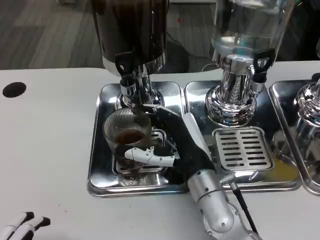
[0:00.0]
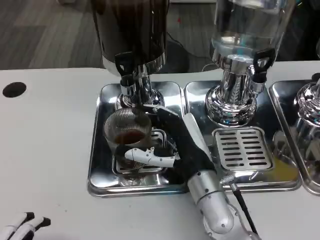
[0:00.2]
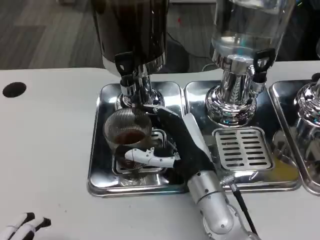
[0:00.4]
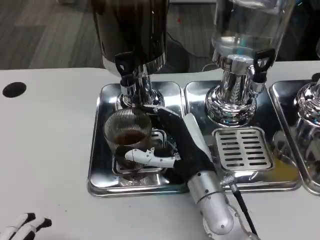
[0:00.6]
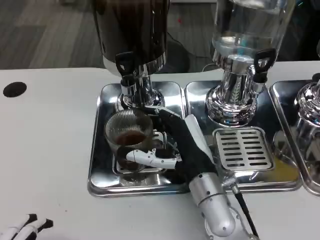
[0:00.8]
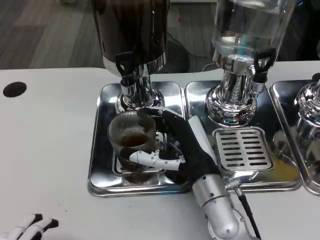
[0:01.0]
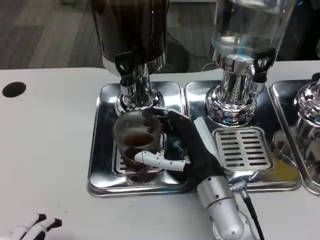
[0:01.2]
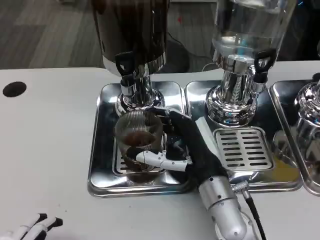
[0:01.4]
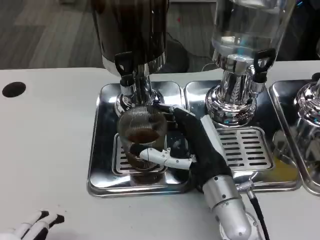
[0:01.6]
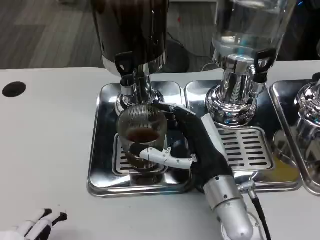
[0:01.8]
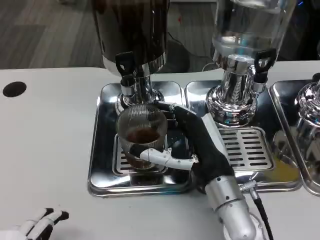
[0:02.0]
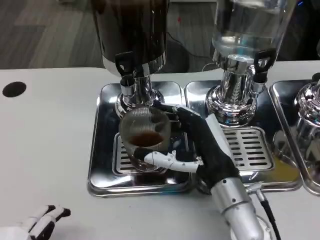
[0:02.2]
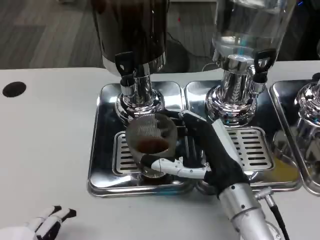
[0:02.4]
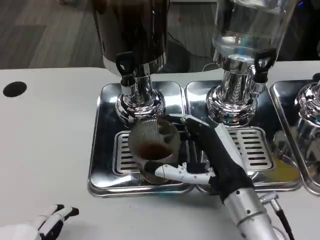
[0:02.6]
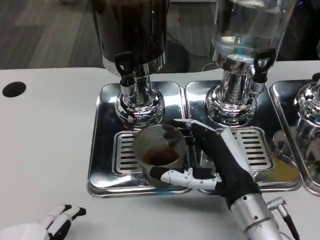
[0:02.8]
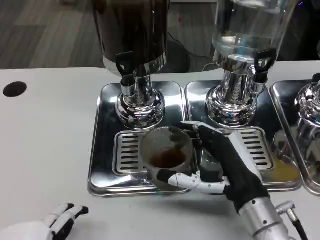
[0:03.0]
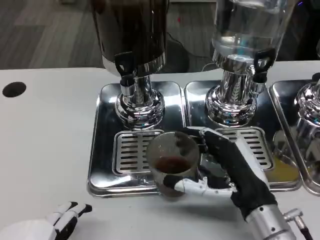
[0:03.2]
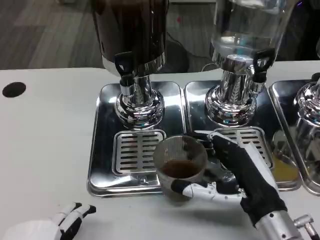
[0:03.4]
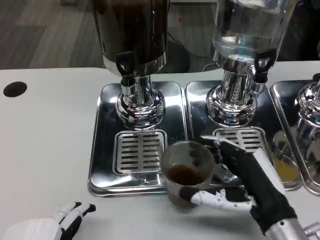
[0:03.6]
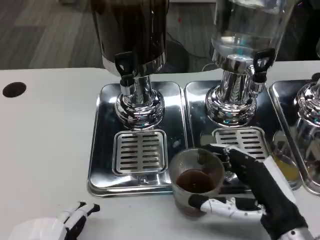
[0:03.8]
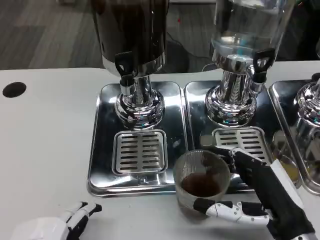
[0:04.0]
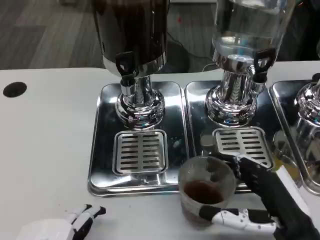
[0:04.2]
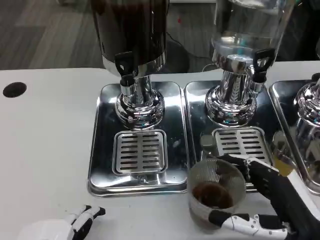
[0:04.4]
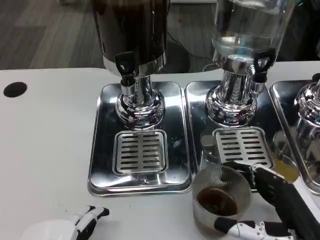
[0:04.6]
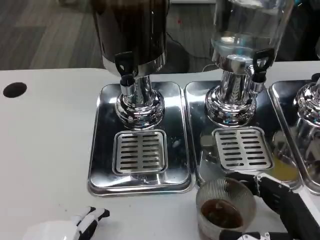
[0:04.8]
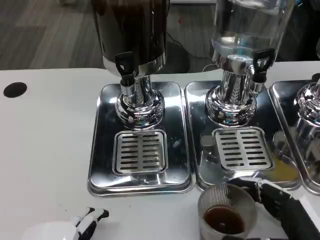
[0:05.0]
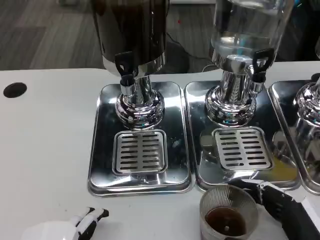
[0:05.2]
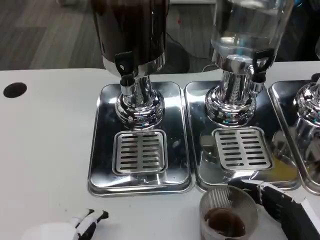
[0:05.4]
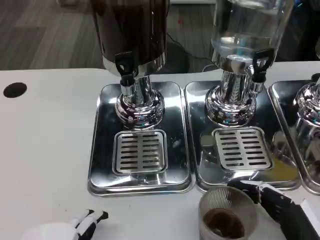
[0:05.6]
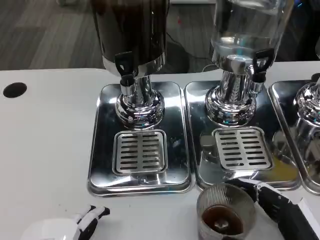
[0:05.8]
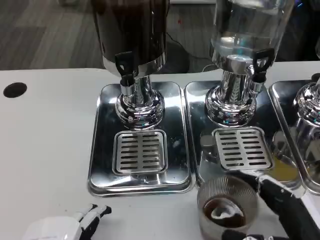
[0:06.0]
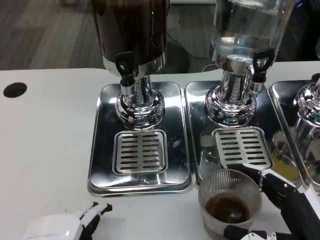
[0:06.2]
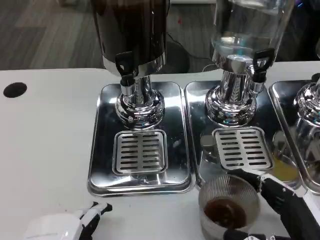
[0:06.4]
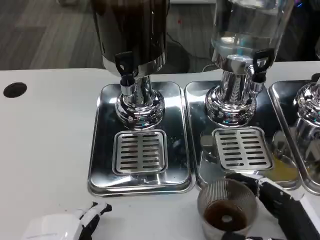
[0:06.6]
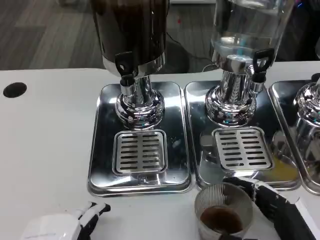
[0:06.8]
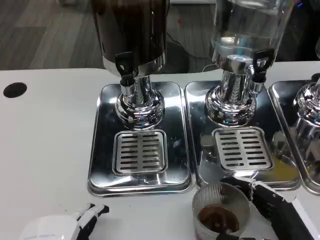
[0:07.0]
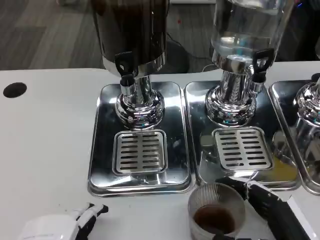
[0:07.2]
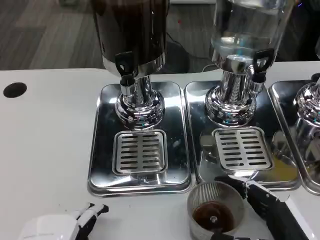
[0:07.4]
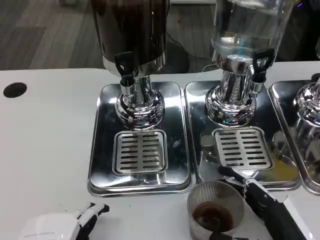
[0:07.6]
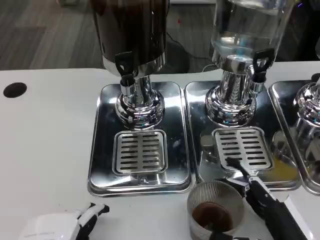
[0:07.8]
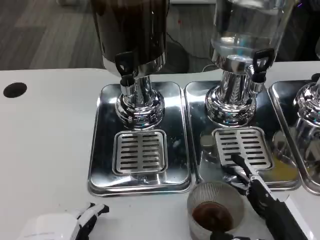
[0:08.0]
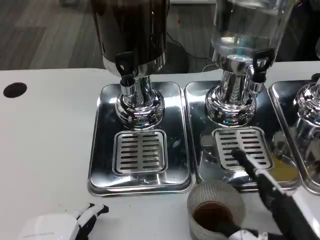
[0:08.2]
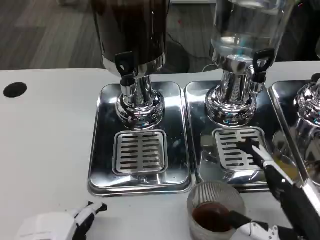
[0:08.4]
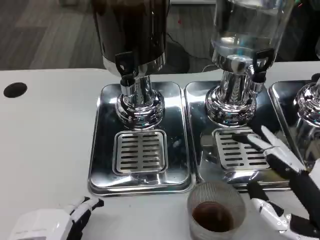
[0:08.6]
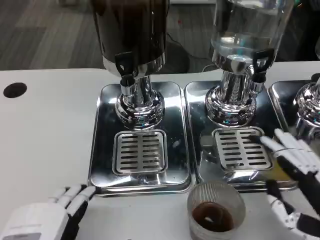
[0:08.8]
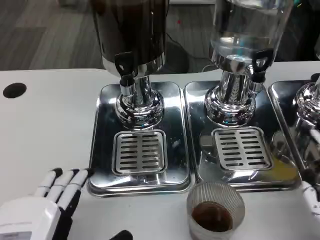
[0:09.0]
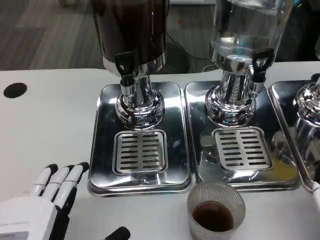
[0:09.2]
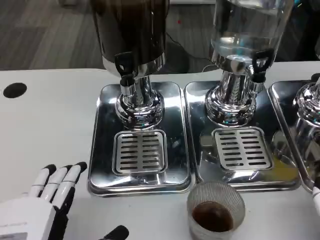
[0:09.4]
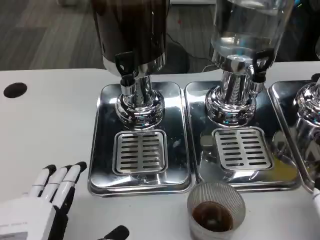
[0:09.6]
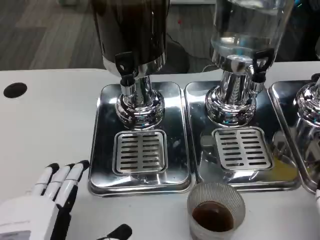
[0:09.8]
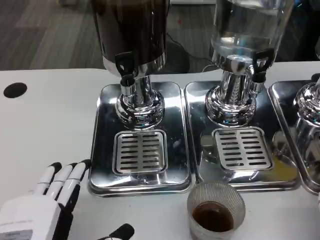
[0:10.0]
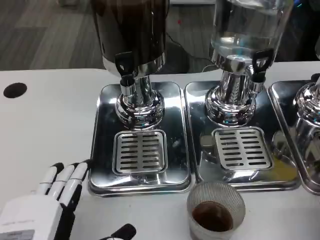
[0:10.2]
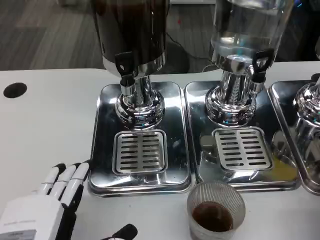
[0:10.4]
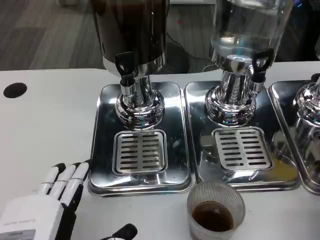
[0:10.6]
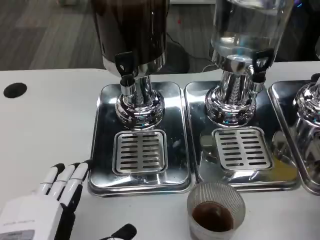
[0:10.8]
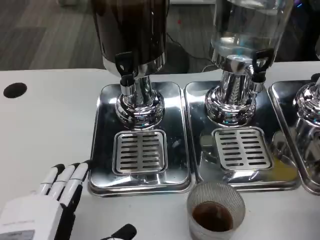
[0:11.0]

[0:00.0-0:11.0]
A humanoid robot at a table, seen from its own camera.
Task of the whole recording: Grasp the cup under the faucet to collect the drink, then remove the cup.
0:00.0 to 0:01.6: The hands make only small movements.
0:01.6 to 0:03.2: The right hand moves to the right, about 5 cm.
0:03.2 to 0:04.8: The right hand shifts about 10 cm backward and to the right.
0:04.8 to 0:07.8: The hands stay close to where they were, moving slightly.
0:07.8 to 0:09.4: The right hand travels upward and to the right by about 10 cm.
0:09.4 to 0:11.0: The hands move only a little.

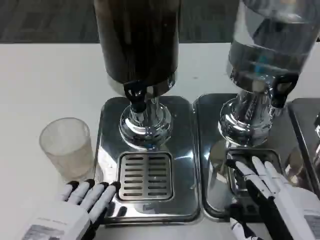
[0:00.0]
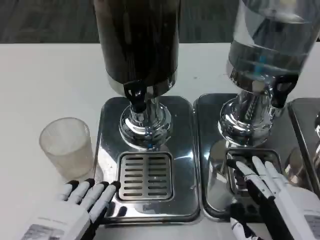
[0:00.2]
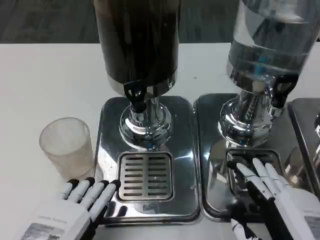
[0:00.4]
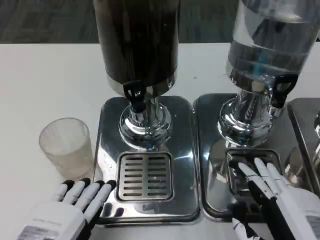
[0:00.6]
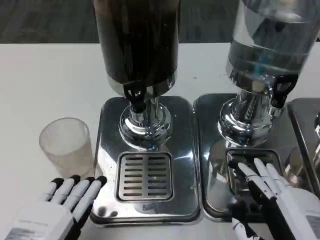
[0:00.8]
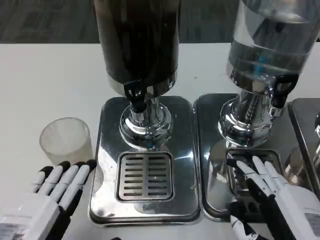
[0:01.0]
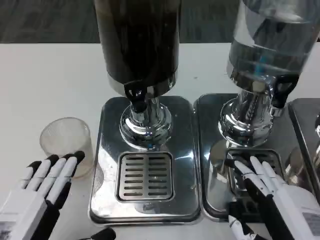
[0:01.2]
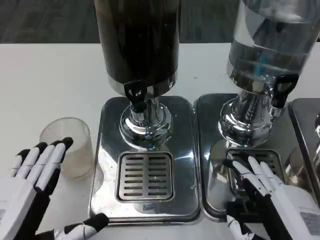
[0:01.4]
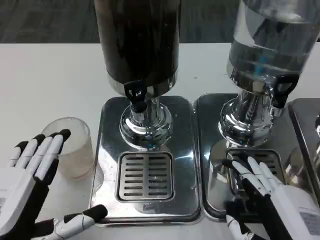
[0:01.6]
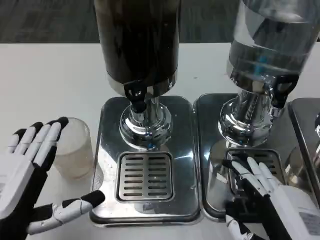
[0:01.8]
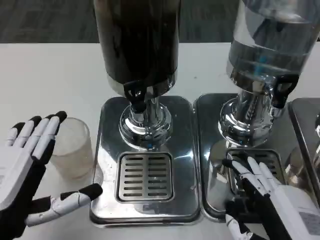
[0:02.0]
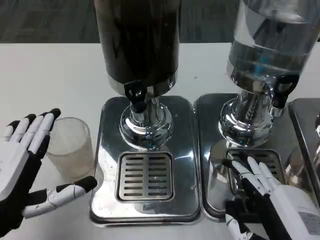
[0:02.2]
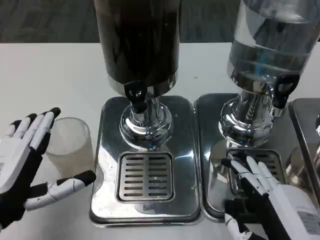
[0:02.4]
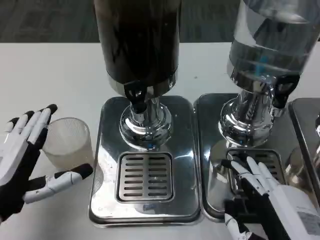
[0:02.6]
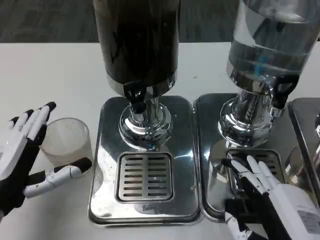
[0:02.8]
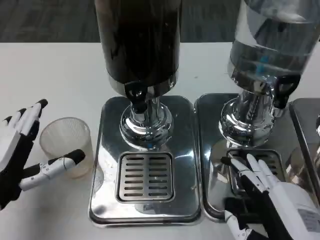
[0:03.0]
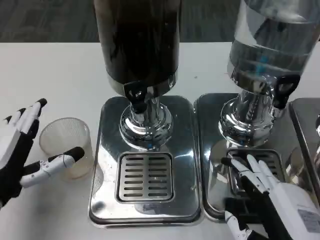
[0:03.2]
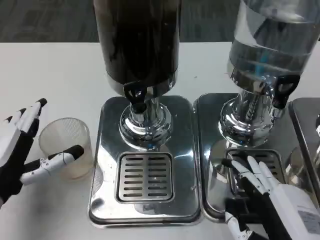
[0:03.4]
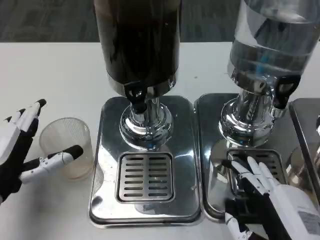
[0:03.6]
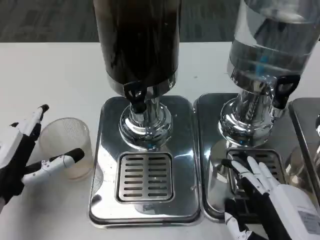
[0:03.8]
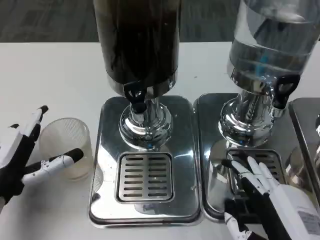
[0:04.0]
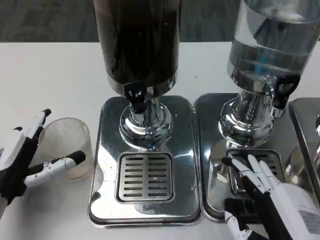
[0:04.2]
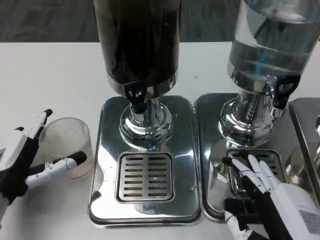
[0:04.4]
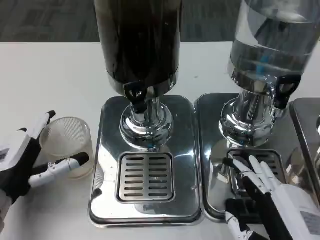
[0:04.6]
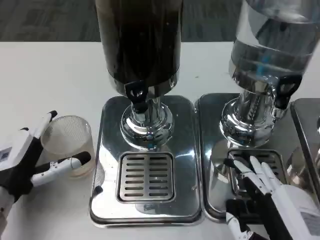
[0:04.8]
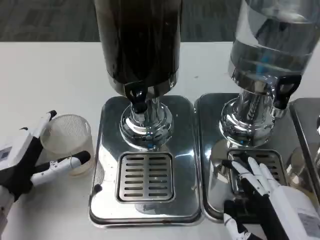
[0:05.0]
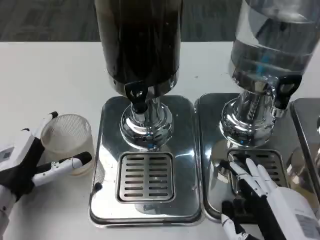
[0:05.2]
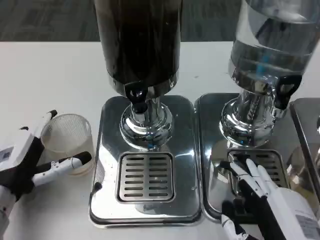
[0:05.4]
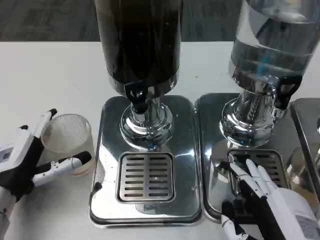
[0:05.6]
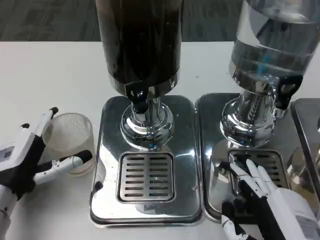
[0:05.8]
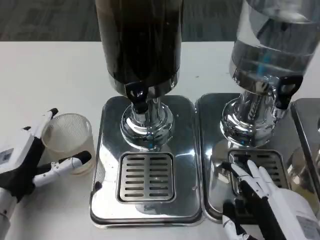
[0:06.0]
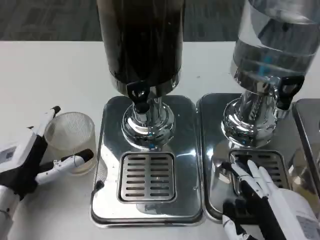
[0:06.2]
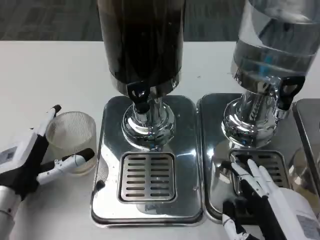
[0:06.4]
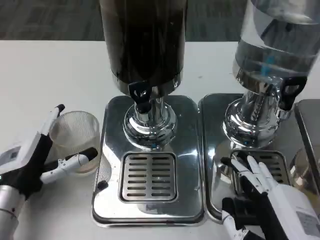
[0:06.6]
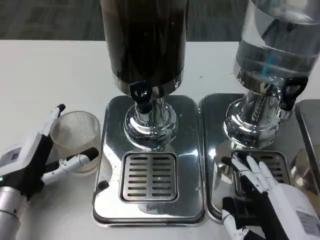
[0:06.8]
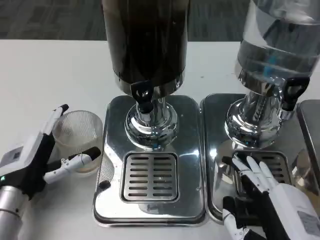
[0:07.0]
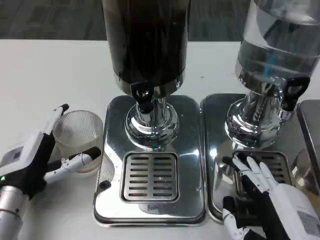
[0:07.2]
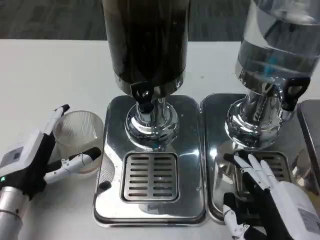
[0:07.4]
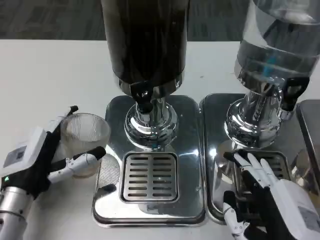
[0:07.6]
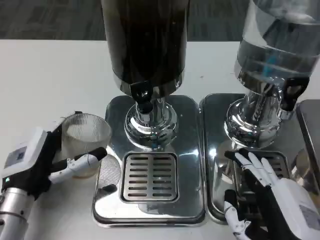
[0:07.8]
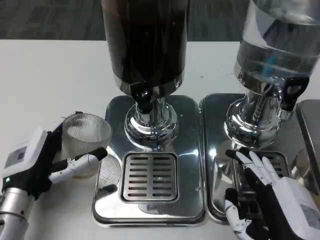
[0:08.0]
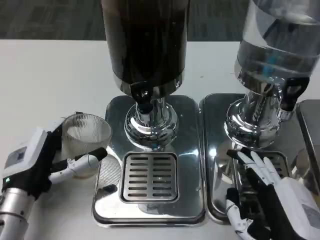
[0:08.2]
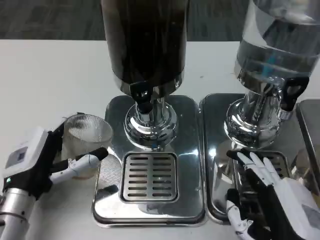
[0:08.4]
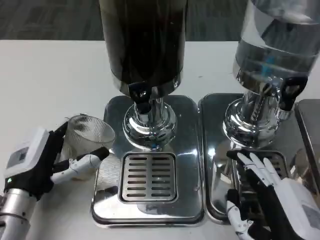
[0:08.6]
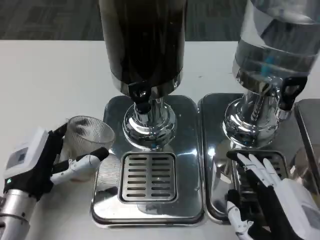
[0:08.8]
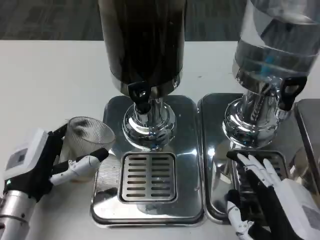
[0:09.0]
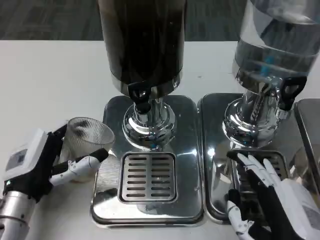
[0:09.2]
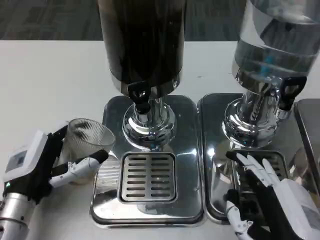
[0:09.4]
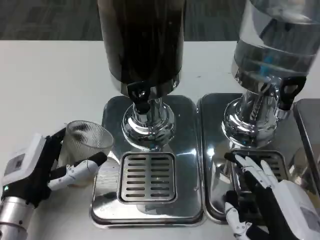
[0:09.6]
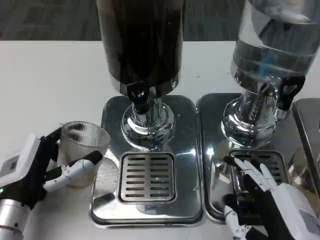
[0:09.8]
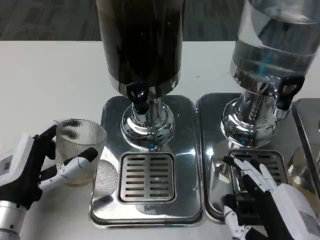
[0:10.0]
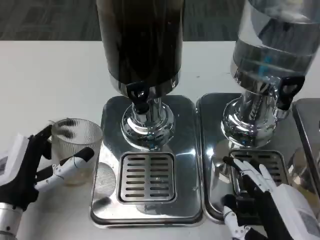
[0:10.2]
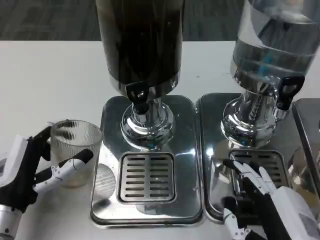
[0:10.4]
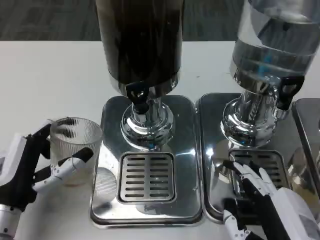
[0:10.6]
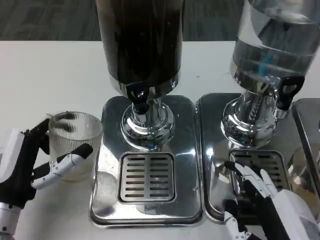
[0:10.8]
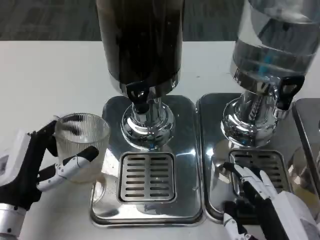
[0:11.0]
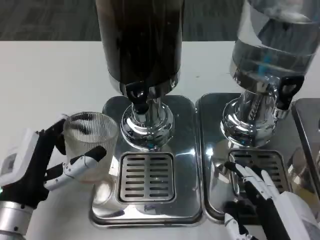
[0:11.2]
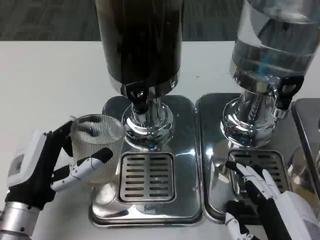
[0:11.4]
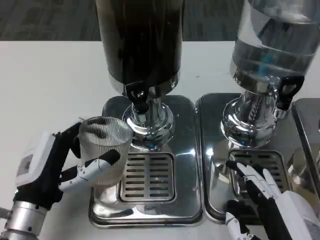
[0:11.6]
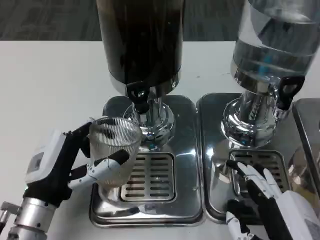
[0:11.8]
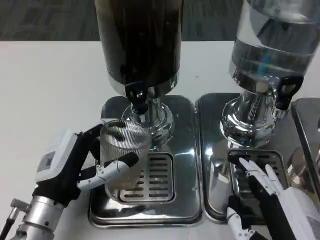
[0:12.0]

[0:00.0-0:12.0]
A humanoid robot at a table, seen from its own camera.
Task of the whole recording: Grasp the cup under the faucet to collect the drink, then remove the cup.
0:01.6 to 0:03.0: The left hand is displaced forward by some 10 cm.
0:03.0 to 0:06.0: The hands move only a little.
0:07.6 to 0:09.0: Neither hand changes place.
0:10.4 to 0:12.0: The left hand ends up roughly 5 cm from where it was.
